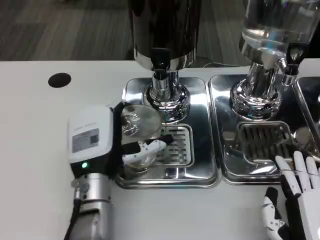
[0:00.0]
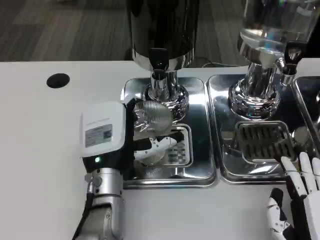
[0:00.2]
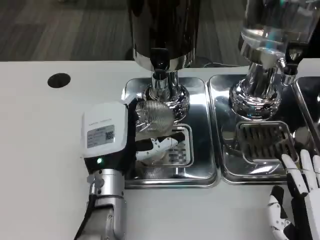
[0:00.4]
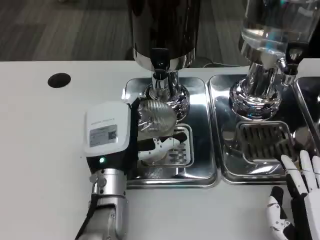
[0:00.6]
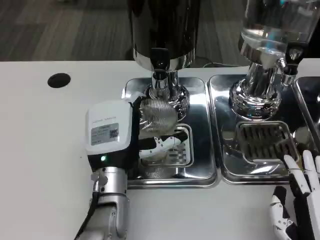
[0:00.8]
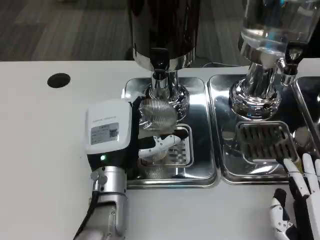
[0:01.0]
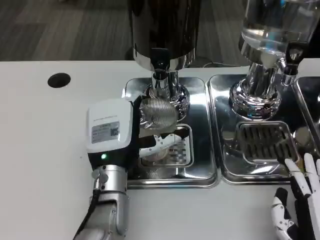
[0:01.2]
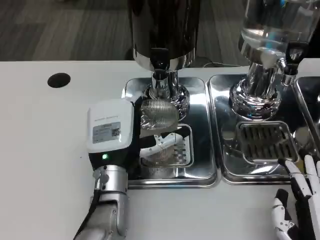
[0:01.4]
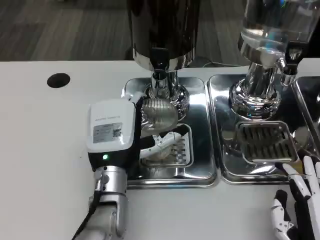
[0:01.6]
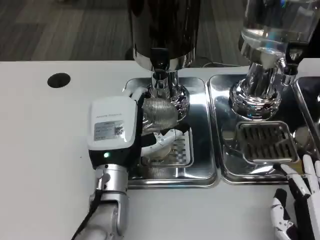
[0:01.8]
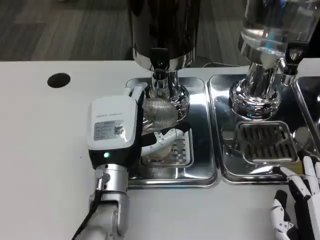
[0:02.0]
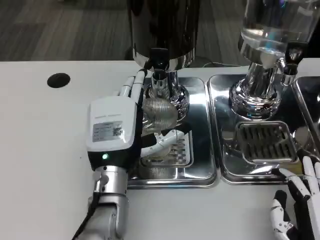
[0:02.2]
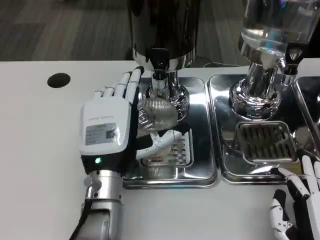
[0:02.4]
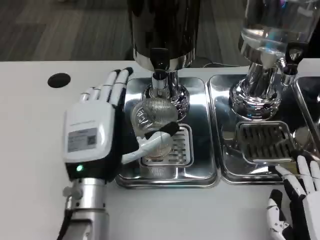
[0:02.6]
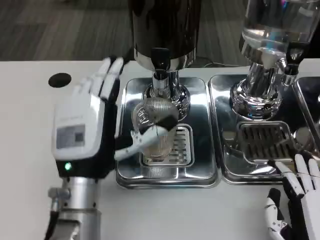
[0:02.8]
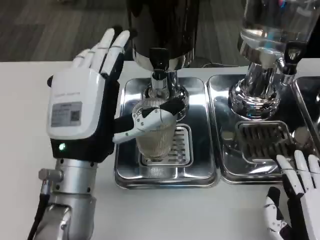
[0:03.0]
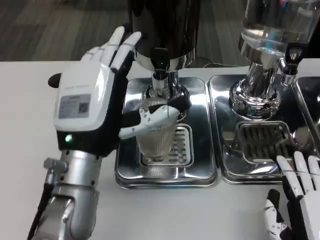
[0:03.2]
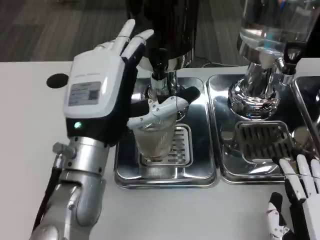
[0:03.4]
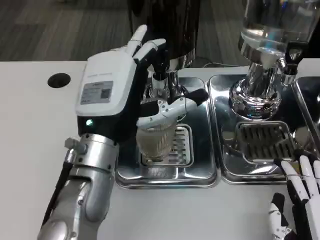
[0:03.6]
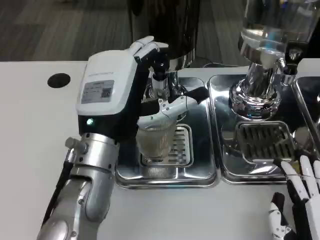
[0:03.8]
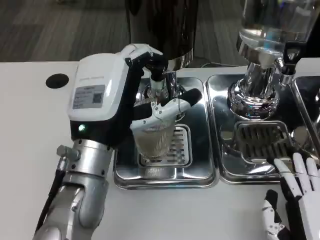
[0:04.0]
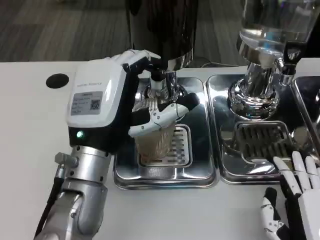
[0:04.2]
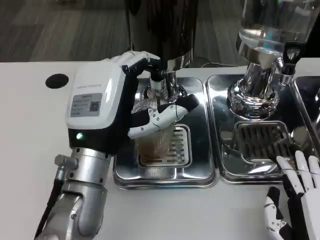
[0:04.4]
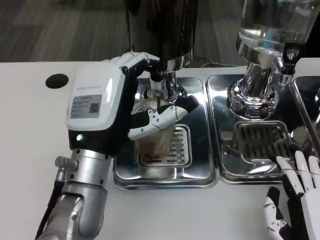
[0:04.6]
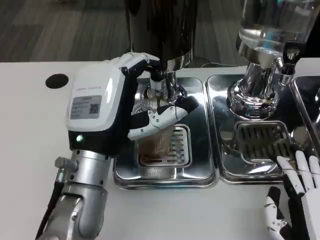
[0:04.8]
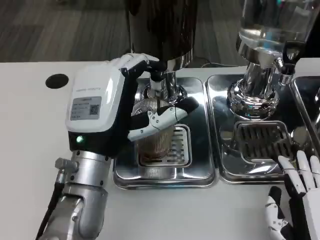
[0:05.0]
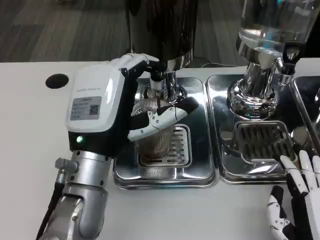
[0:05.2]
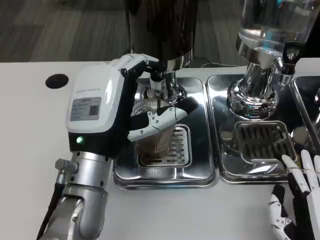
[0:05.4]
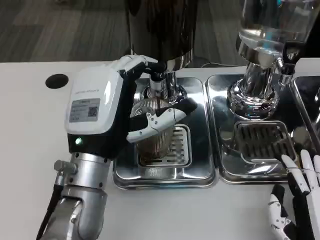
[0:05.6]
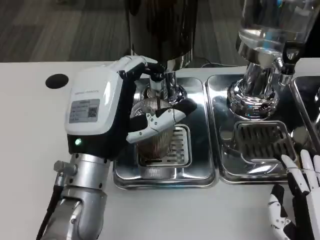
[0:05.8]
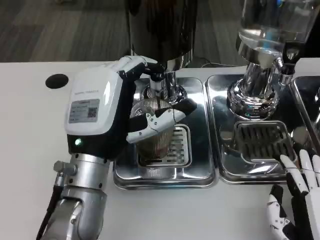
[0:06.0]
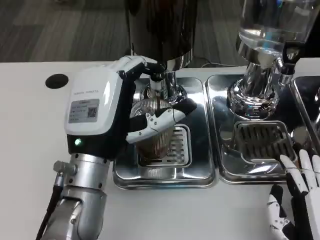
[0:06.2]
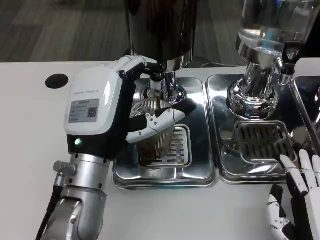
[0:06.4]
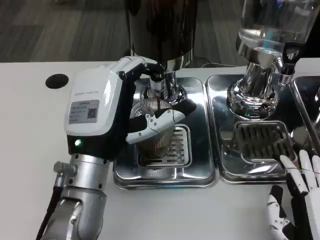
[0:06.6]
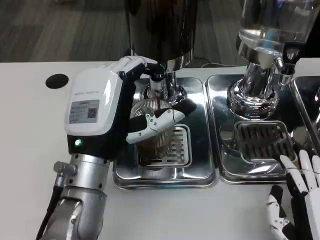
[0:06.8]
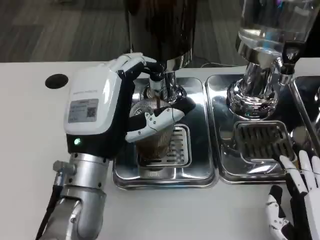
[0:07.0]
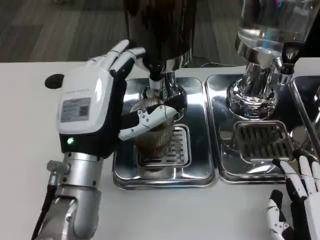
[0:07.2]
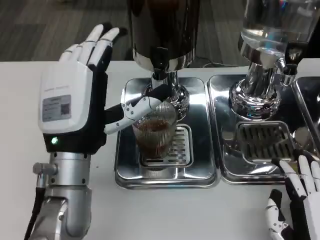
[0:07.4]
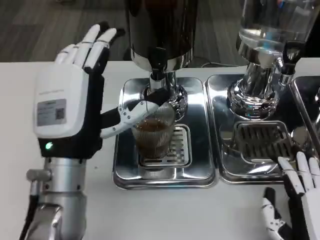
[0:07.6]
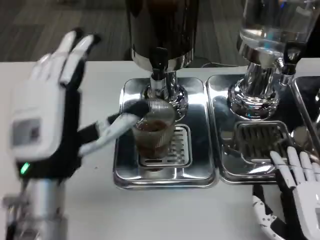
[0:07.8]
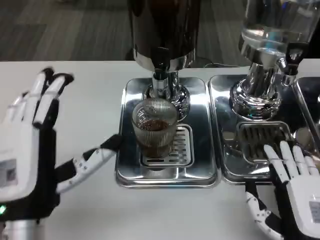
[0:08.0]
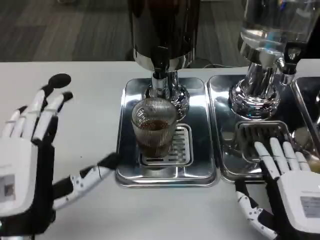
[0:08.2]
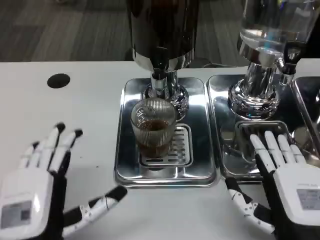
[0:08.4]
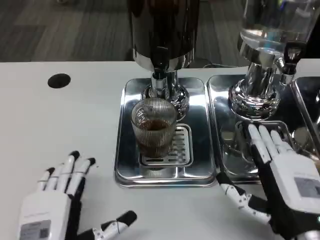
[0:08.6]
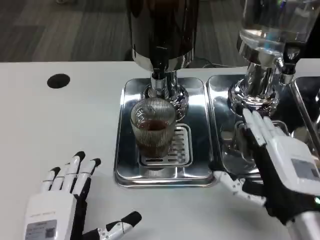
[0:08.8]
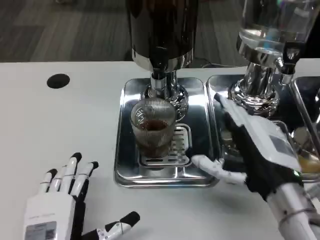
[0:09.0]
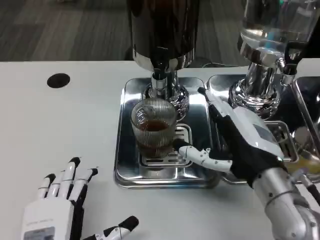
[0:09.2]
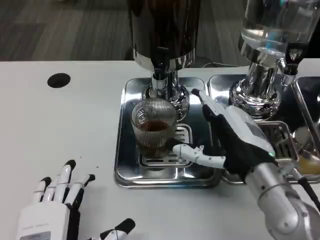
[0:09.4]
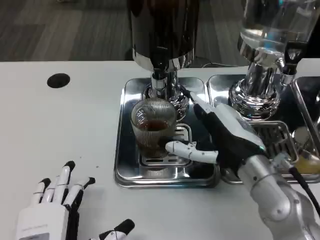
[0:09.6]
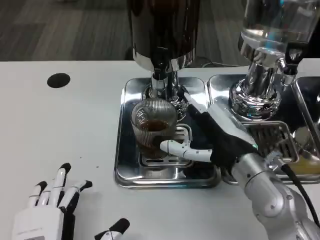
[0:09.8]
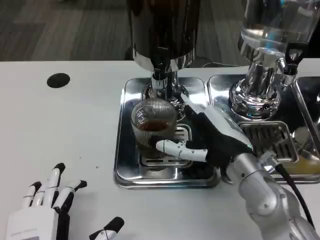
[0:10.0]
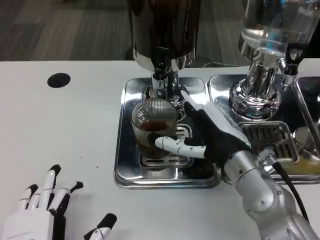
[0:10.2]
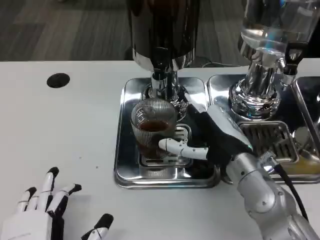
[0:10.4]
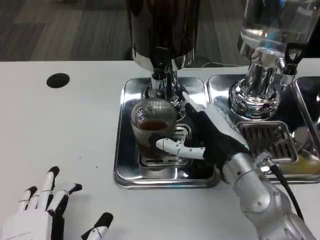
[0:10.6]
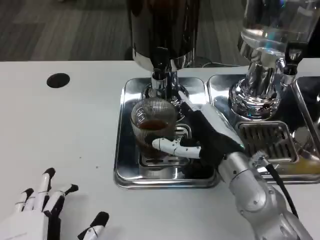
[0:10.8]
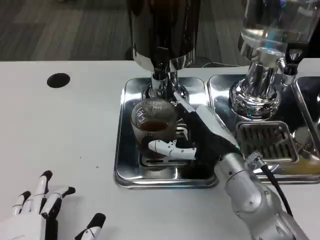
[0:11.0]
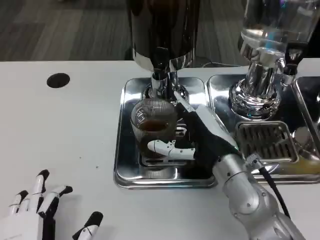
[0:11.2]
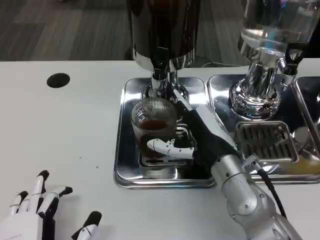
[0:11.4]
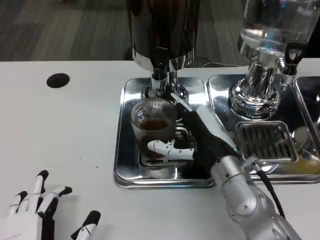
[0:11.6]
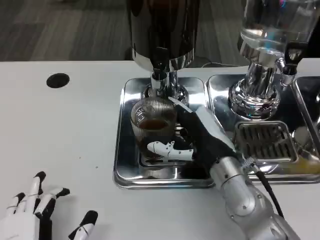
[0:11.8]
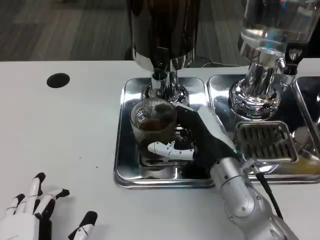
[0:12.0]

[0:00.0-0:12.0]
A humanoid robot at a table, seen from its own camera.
Task of the whole recording: Grasp the cup under the faucet to collect the drink, then remove the cup.
0:00.0 to 0:01.6: The hands make only small movements.
0:01.6 to 0:03.0: The left hand moves upward, roughly 10 cm.
0:04.4 to 0:06.0: The two hands keep their place.
0:07.6 to 0:09.0: The right hand heads forward and upward, covering about 10 cm; the left hand moves backward and downward, approximately 15 cm.
0:09.0 to 0:10.4: The right hand goes approximately 5 cm forward.
0:10.4 to 0:12.0: The hands stay close to where they were, moving slightly.

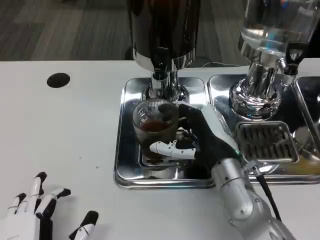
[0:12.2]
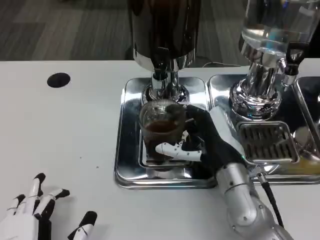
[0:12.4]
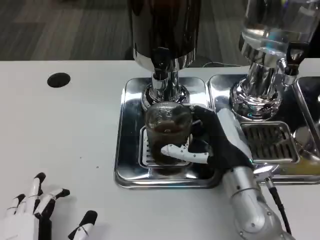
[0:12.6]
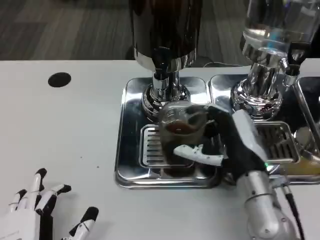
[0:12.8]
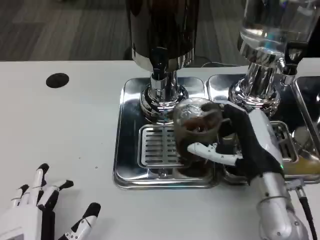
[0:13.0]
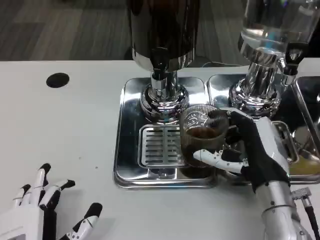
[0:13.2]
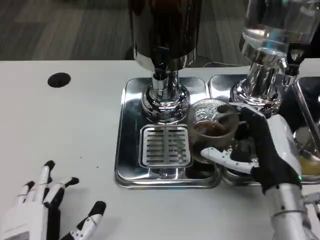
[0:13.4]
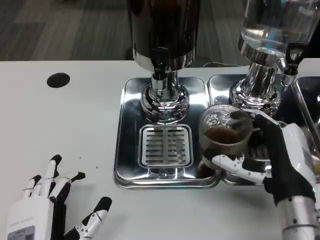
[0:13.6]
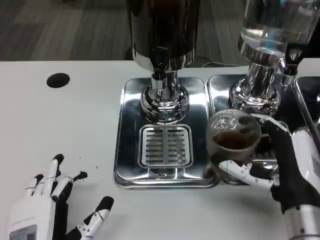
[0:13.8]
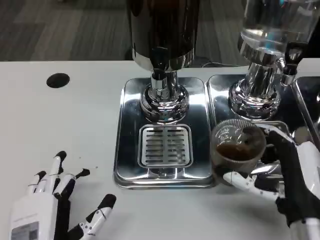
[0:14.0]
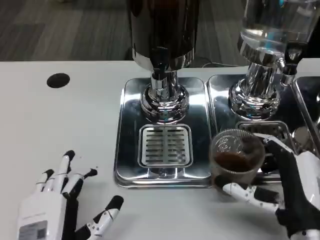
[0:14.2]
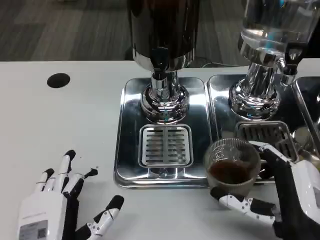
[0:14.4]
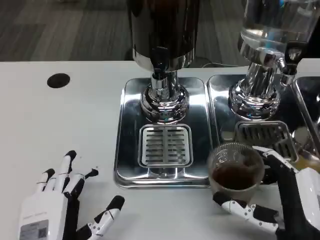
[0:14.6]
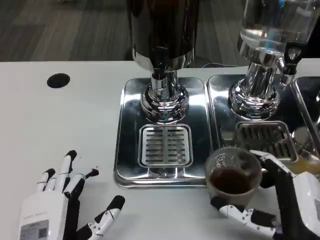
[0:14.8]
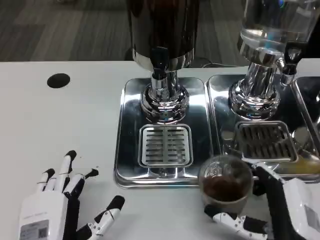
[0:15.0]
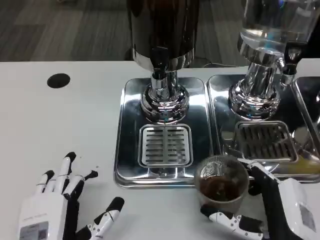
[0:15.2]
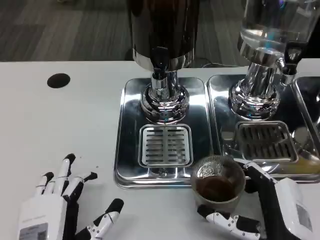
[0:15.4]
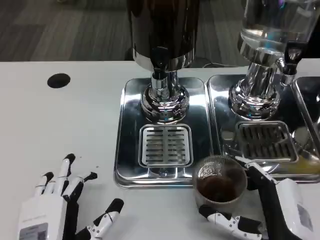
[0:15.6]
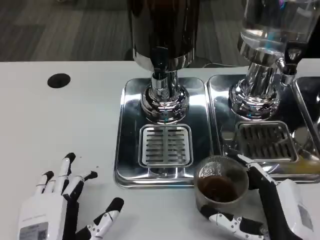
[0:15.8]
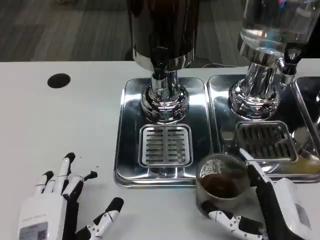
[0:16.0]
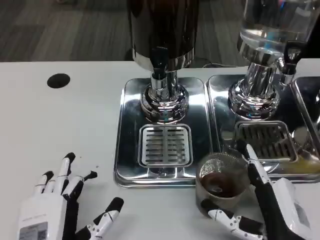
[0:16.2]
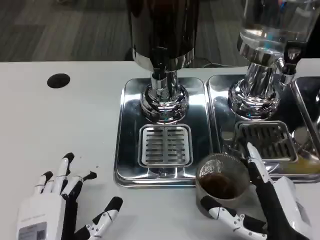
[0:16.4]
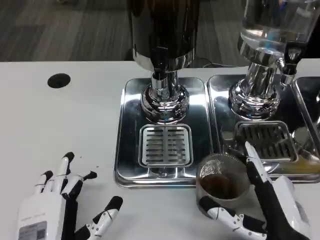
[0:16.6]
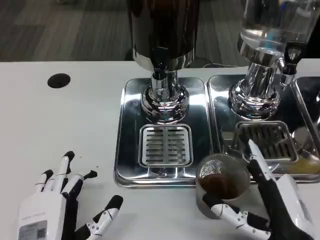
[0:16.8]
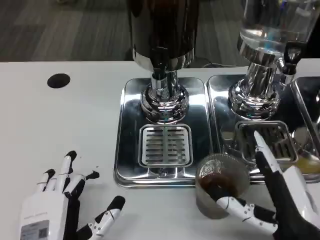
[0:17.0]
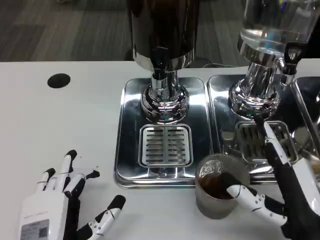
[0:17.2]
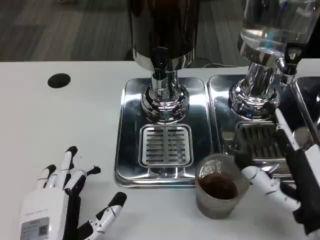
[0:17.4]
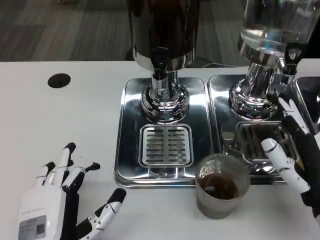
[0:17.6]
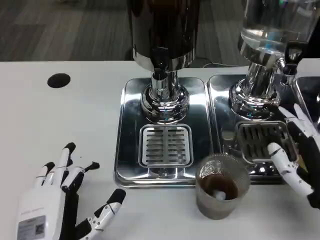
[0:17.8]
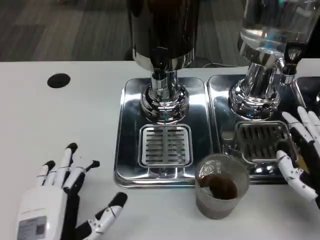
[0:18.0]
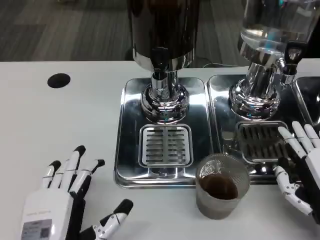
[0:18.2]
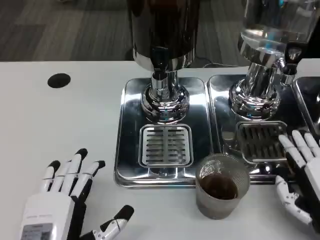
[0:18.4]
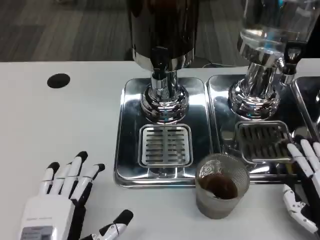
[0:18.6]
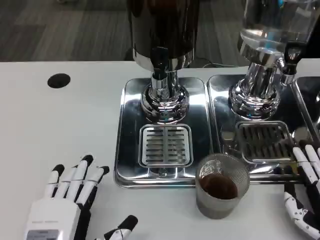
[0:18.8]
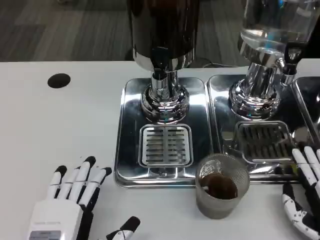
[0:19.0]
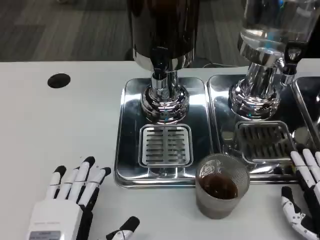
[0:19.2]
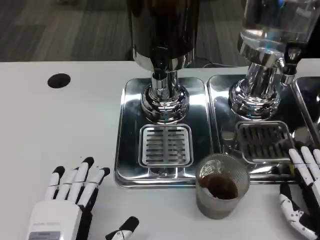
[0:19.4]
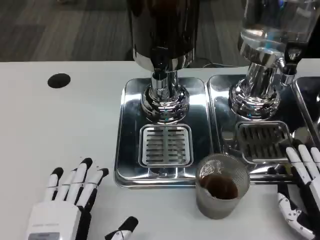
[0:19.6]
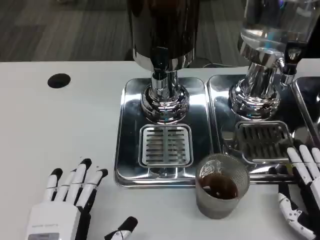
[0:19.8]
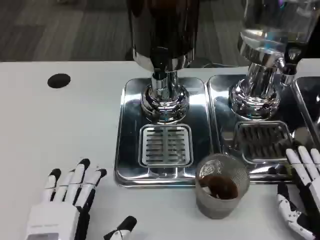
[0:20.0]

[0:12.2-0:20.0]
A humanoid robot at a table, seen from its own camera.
Task of the whole recording: Grasp the cup under the faucet to collect the drink, then remove the cup.
0:12.2 to 0:13.8: The right hand goes approximately 10 cm backward and to the right.
0:13.8 to 0:15.4: The right hand heads backward, covering approximately 5 cm.
0:15.4 to 0:16.8: The hands make only small movements.
0:16.8 to 0:18.4: The right hand moves to the right, approximately 10 cm.
0:18.4 to 0:20.0: The hands stay close to where they were, moving slightly.

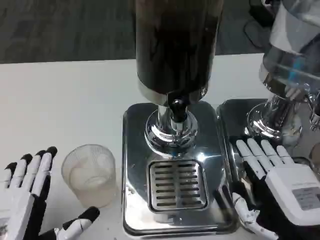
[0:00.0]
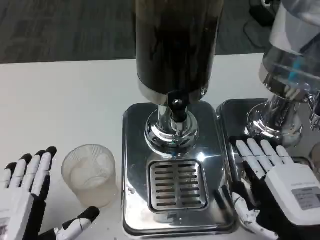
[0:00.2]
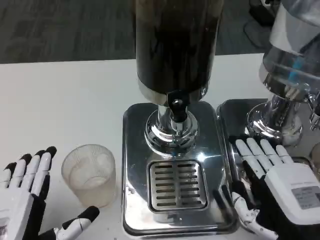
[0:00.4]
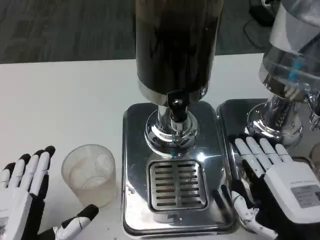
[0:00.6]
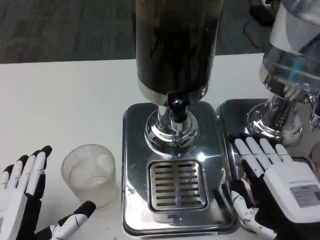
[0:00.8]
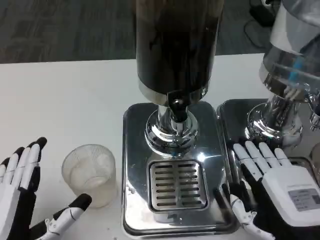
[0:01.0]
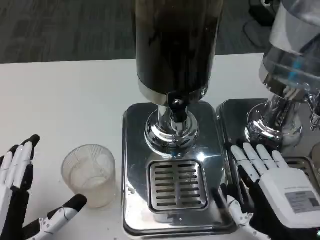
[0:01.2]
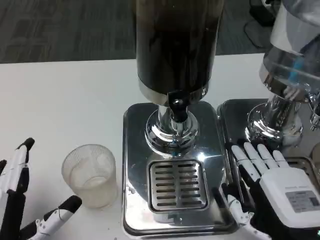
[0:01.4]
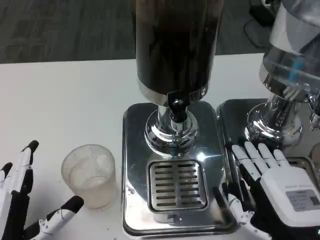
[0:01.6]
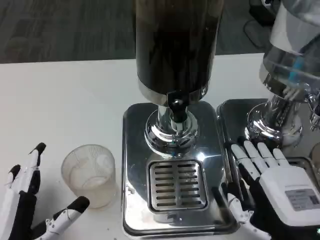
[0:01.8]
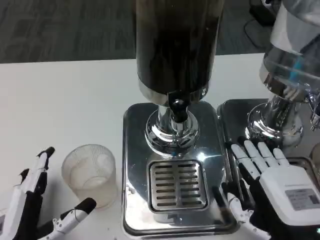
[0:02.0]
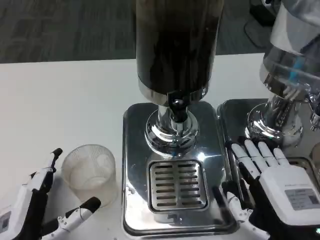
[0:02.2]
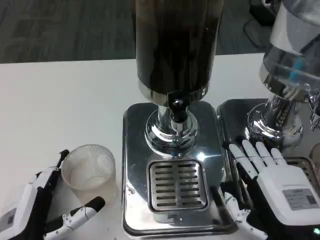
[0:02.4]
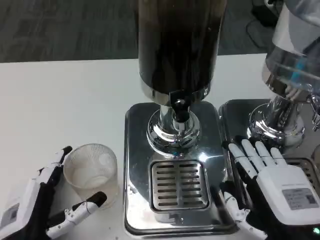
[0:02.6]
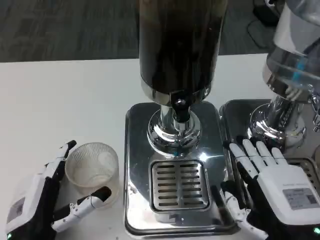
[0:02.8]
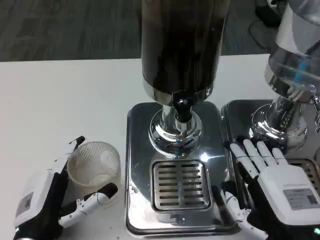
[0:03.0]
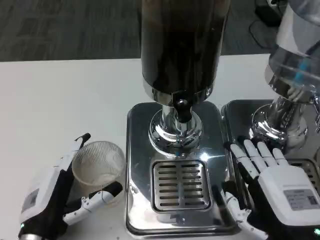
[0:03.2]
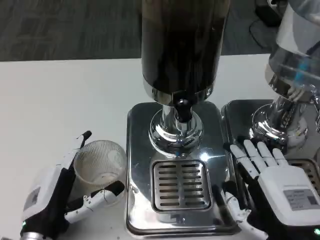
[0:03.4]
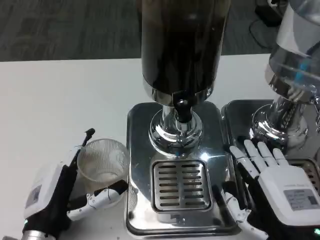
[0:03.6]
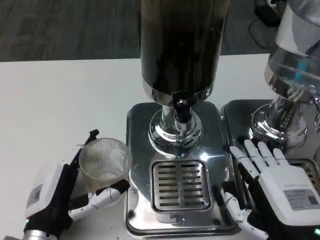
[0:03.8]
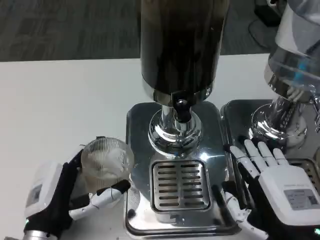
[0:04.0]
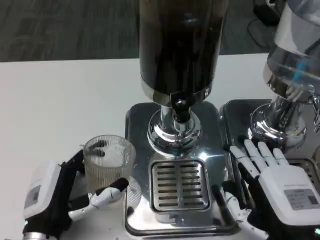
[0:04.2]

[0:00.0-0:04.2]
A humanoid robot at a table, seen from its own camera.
Task of the whole recording: Grasp the cup under the faucet to collect the drink, then remove the cup.
0:01.4 to 0:02.8: The left hand ends up approximately 5 cm from where it was.
0:02.8 to 0:04.2: The hands make only small movements.
